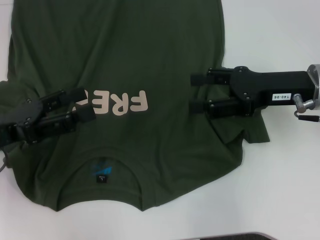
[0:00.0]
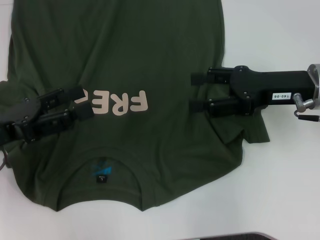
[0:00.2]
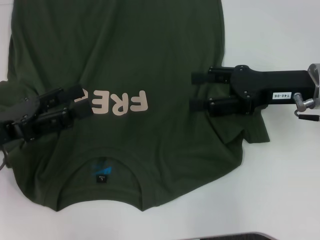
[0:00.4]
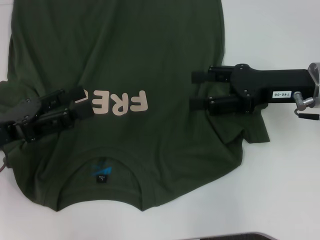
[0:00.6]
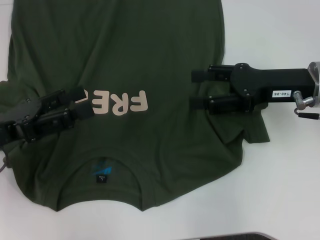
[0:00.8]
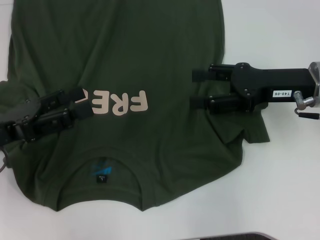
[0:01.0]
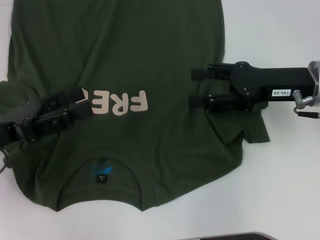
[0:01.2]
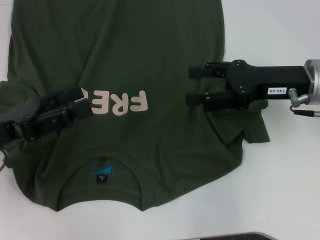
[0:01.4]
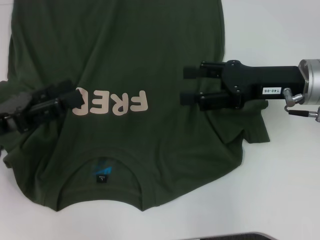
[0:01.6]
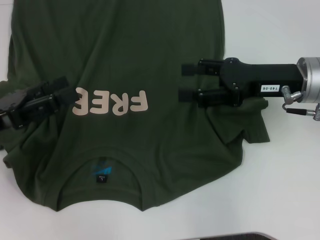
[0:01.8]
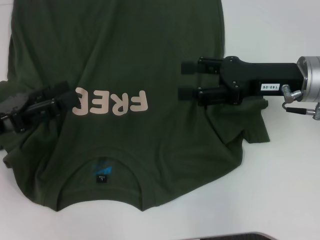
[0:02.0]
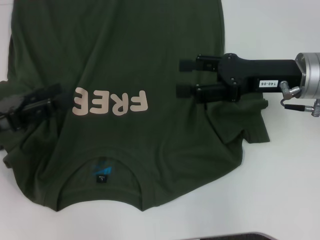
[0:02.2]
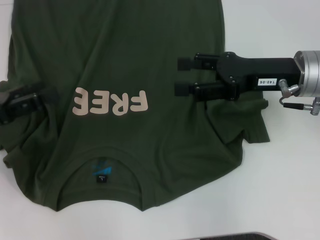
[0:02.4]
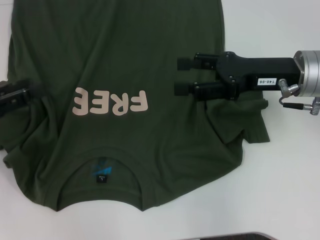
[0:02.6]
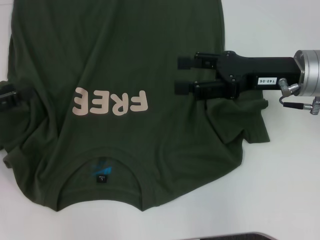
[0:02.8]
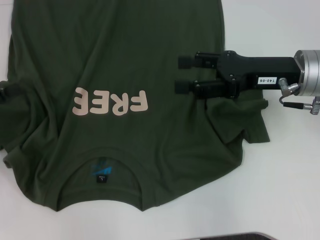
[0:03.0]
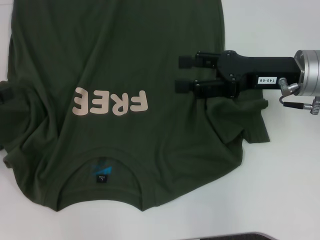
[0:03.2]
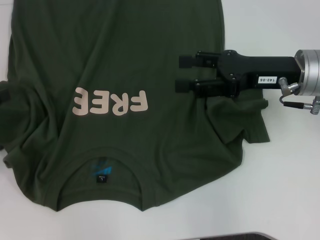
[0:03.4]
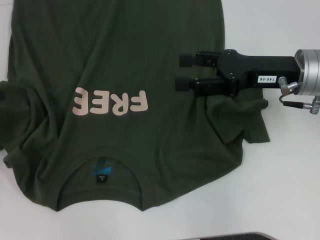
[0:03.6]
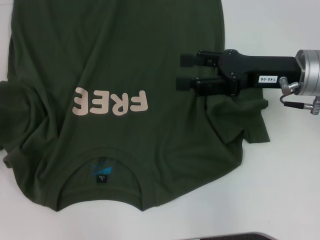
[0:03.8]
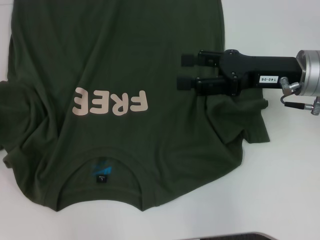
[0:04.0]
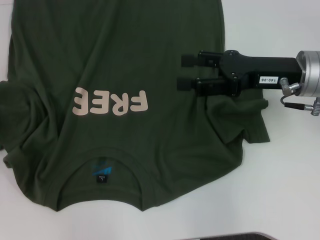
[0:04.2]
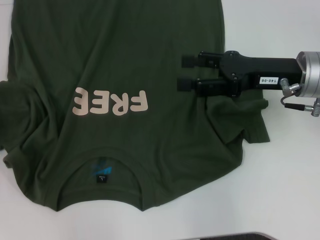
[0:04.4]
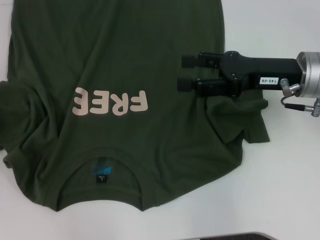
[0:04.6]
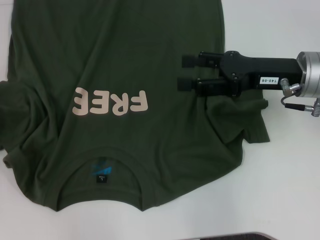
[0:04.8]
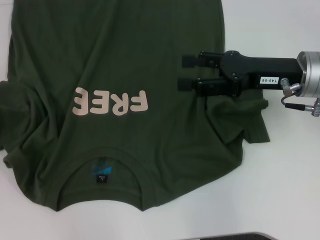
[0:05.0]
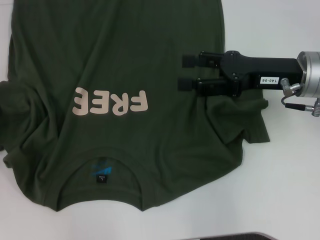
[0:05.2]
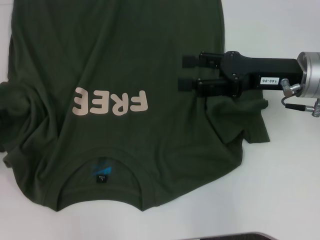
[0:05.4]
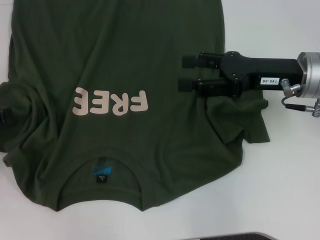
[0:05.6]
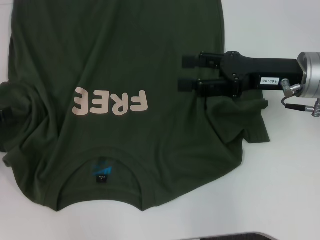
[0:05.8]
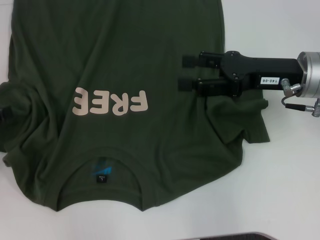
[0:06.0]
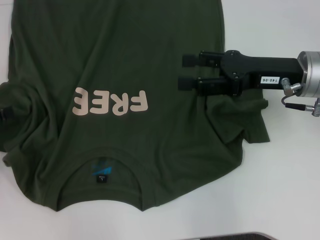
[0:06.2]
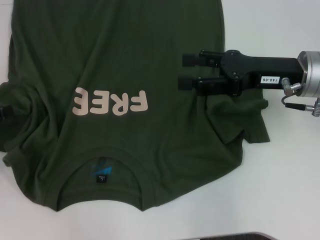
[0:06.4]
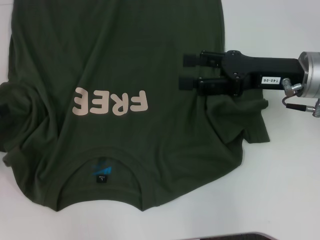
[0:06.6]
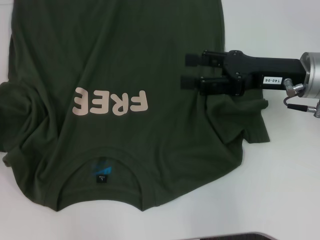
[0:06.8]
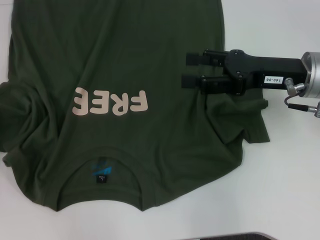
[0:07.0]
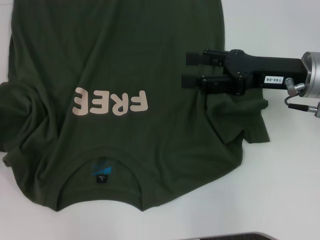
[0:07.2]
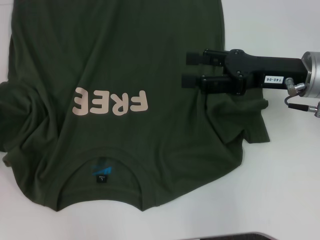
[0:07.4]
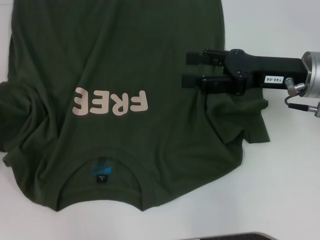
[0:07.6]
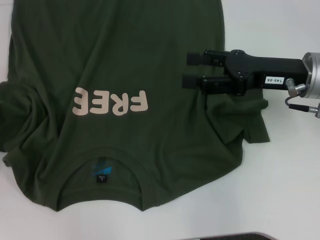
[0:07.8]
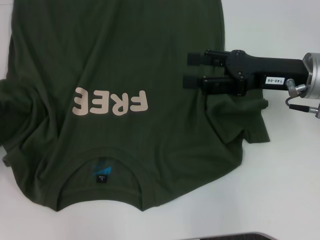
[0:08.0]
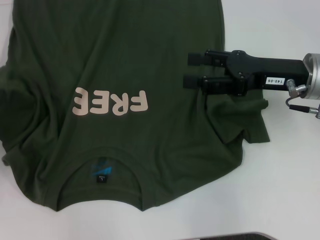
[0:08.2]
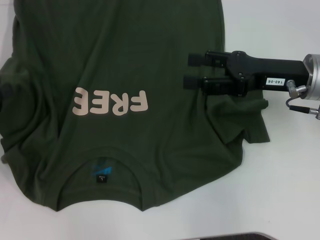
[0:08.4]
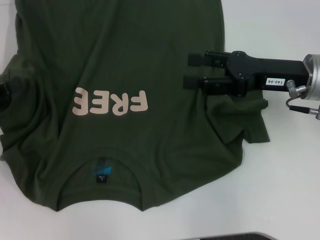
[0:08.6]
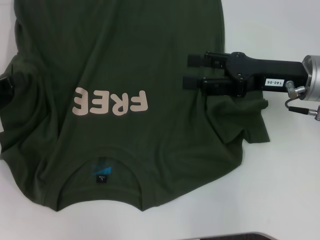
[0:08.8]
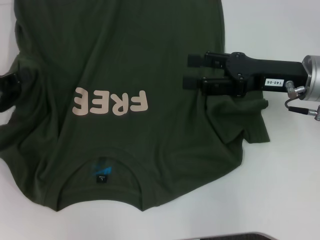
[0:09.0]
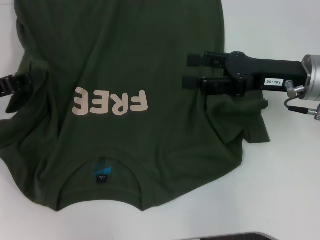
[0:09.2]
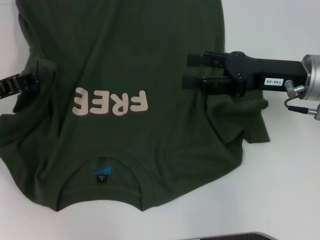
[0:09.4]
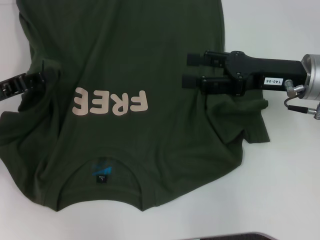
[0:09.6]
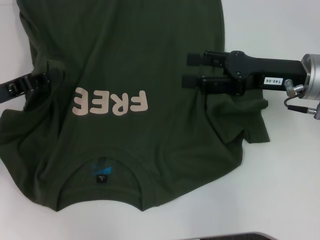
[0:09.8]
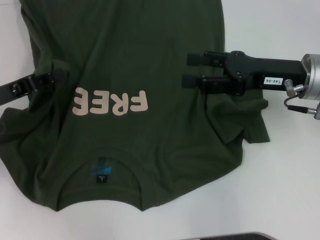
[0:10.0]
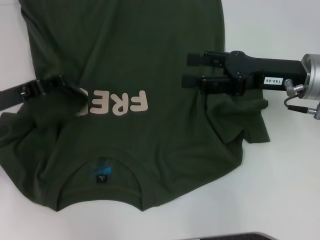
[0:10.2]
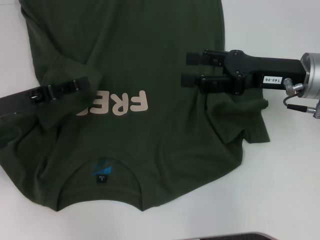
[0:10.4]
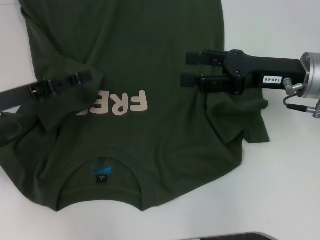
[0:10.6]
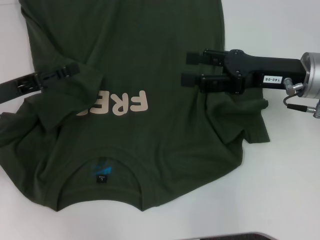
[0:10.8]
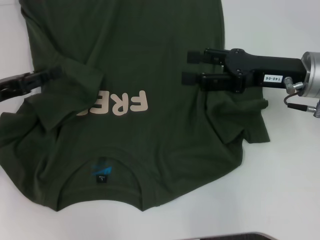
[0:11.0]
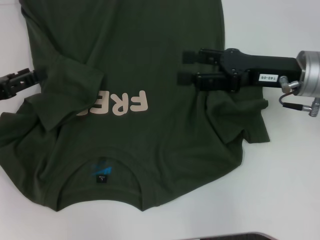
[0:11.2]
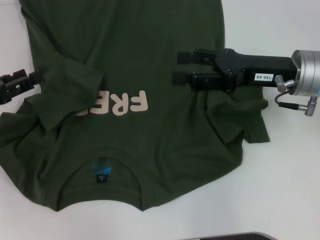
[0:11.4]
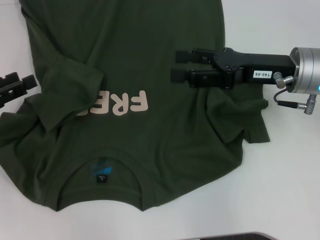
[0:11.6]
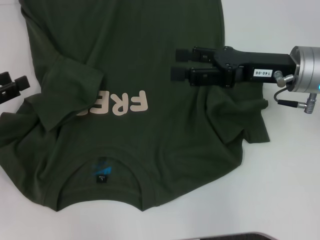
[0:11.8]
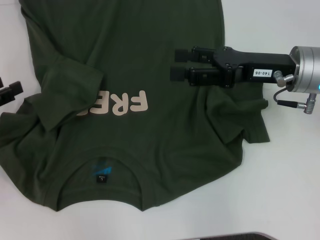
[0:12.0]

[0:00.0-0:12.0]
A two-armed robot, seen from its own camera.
0:00.0 to 0:01.6: The grippers move only a little.
0:01.6 to 0:03.0: The left gripper travels to the left by about 10 cm.
0:03.0 to 0:04.4: There are only small adjustments of the grippers.
0:07.6 to 0:09.0: The left gripper changes place by roughly 5 cm.
0:09.0 to 0:10.4: The left gripper is displaced to the right by approximately 5 cm.
0:10.4 to 0:12.0: The left gripper moves to the left, approximately 10 cm, and opens up.

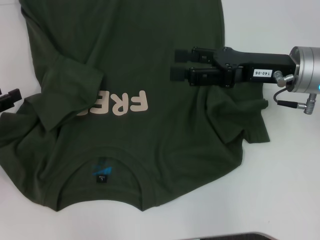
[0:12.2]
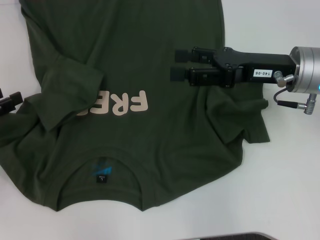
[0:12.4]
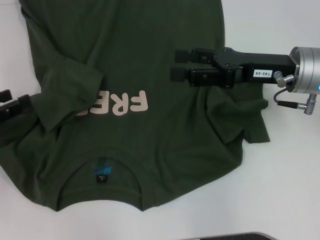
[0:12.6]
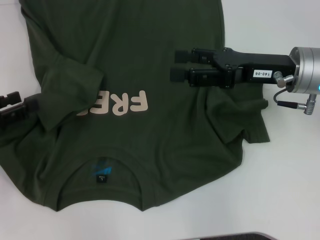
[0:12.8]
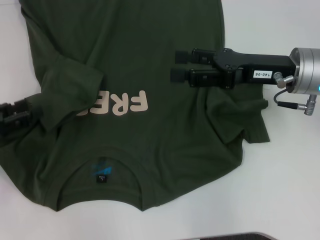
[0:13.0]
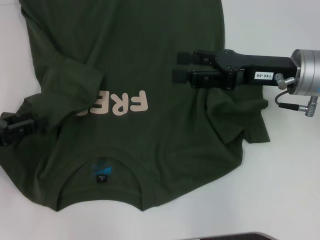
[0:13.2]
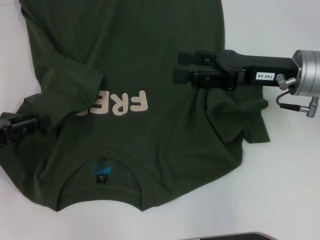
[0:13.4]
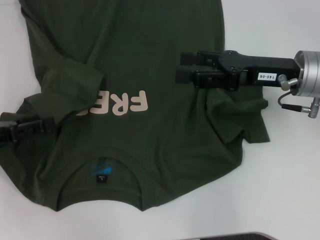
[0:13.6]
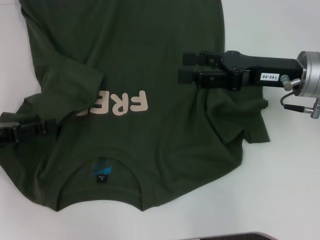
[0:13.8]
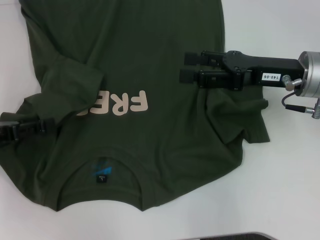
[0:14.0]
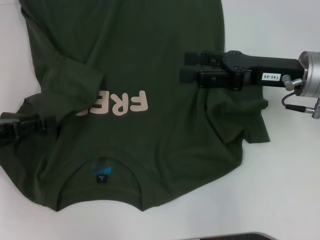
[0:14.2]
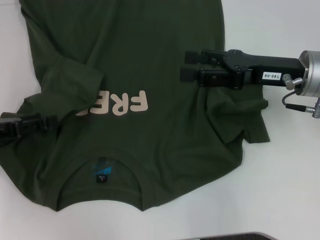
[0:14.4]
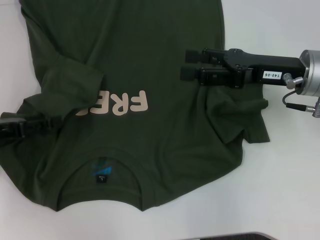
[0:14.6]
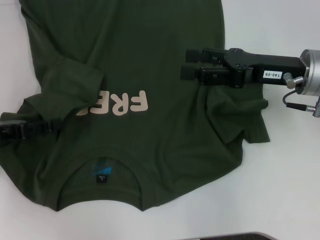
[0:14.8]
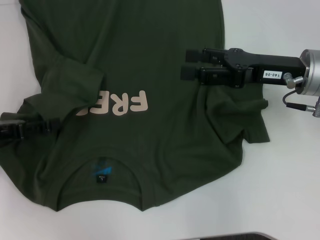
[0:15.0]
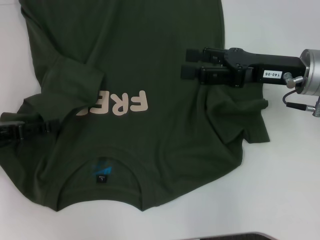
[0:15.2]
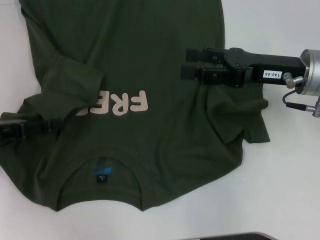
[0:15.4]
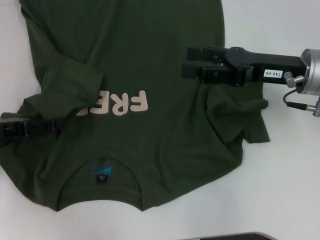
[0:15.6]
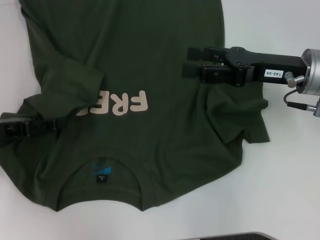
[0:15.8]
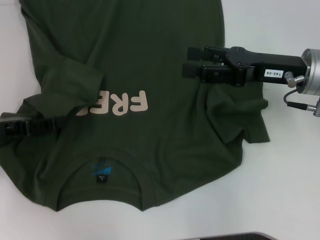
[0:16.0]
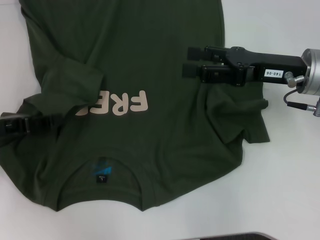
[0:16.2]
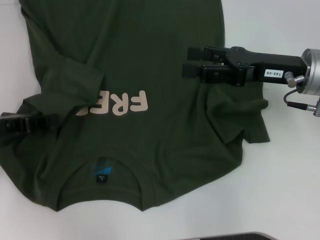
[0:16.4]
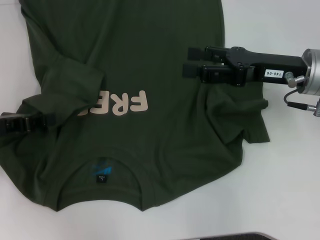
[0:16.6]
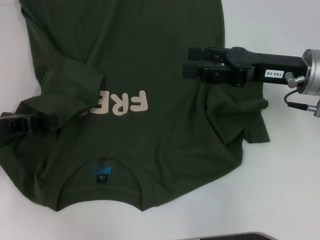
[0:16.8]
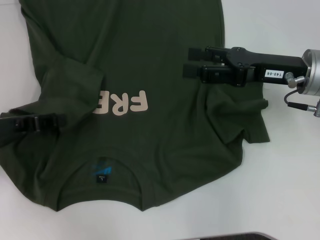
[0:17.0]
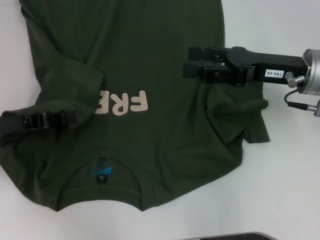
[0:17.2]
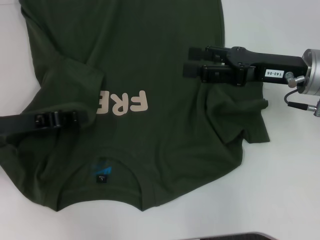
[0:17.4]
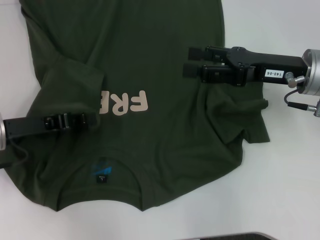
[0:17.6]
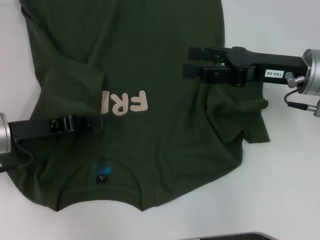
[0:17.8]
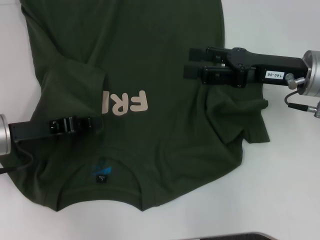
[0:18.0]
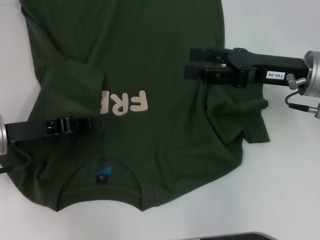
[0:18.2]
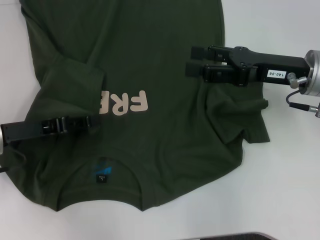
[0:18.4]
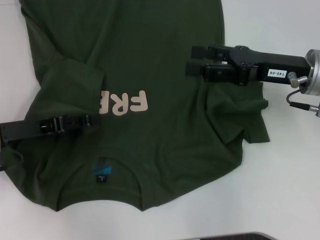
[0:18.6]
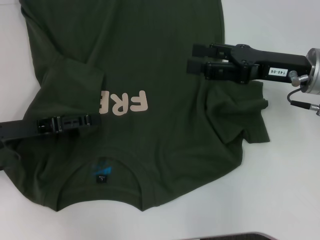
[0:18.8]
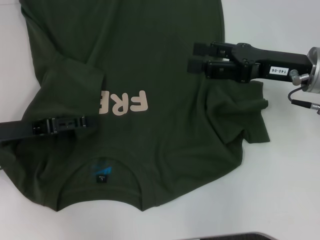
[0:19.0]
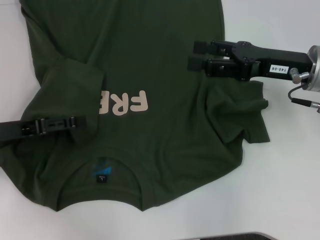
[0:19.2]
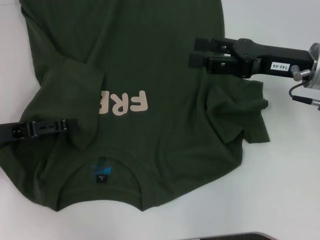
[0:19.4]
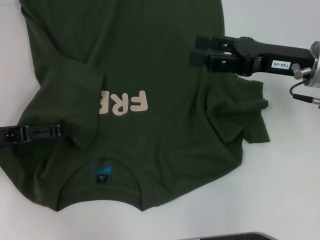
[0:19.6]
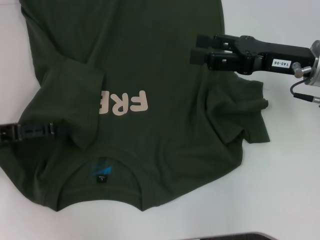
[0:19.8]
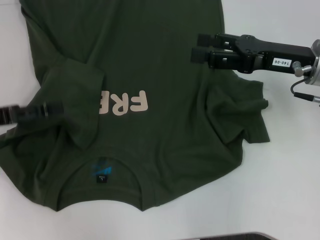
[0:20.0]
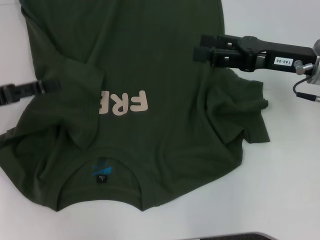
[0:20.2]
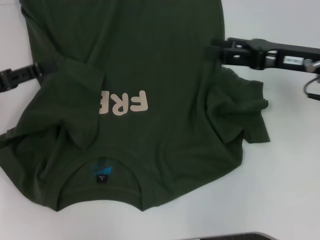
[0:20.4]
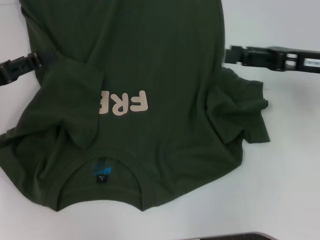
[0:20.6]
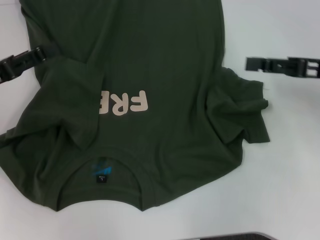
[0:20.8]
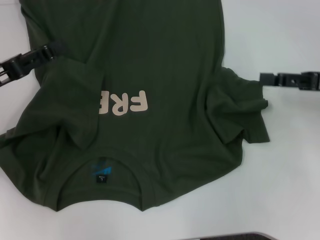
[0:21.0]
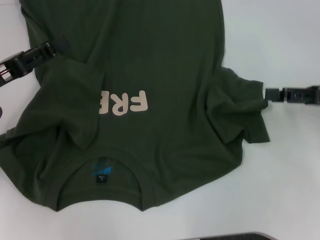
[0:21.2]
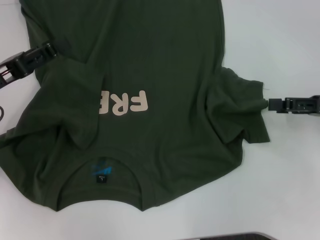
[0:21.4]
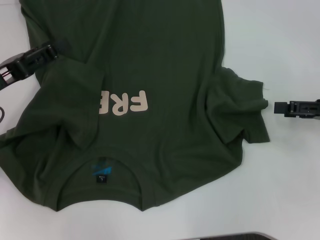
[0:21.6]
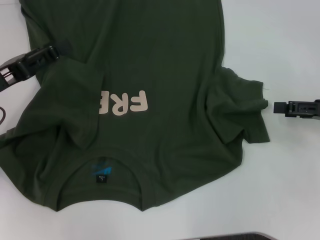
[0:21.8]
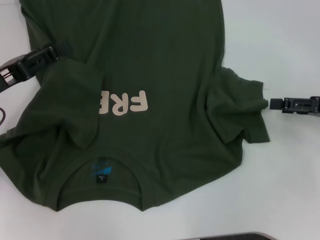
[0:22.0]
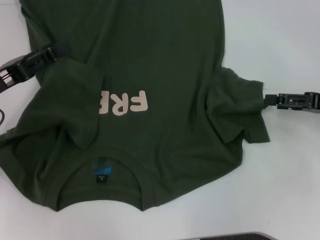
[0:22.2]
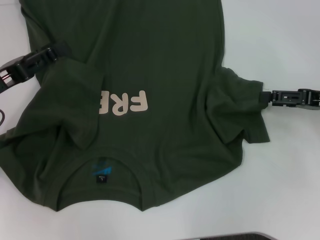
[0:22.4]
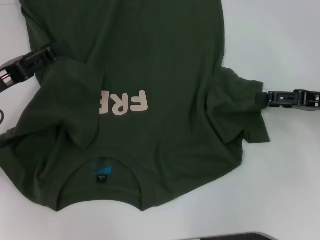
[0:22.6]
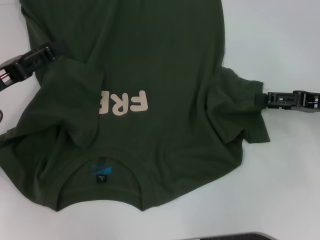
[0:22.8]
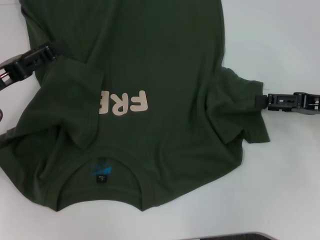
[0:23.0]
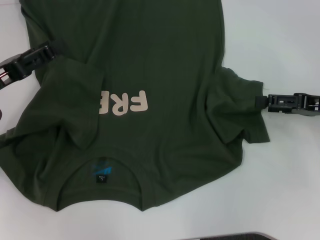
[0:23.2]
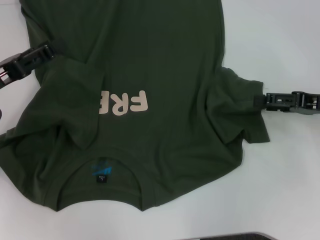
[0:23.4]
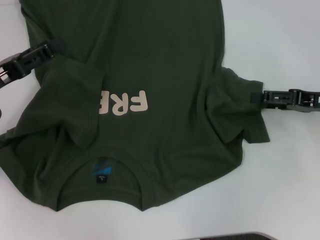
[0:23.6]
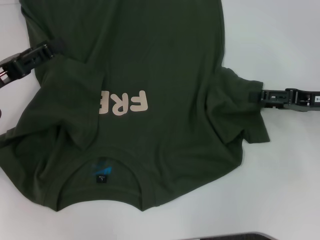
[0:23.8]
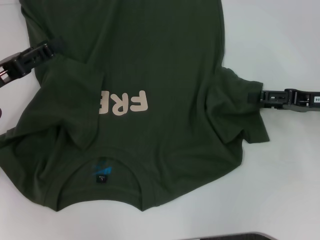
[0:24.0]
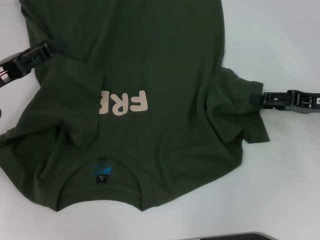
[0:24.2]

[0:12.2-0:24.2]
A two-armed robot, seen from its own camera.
Step, 0:12.2 to 0:20.2: Fold the bottom left sleeve with your left hand.
0:13.8 to 0:15.2: The two grippers keep their place.
0:16.6 to 0:18.2: The left gripper shifts roughly 5 cm to the right.
0:18.2 to 0:19.8: The left gripper travels to the left by roughly 5 cm, and opens its fingers.
0:19.8 to 0:21.2: The right gripper is displaced to the right by some 10 cm.
0:21.2 to 0:22.6: The grippers make only small movements.
0:22.6 to 0:24.2: Both grippers stay about where they are.
